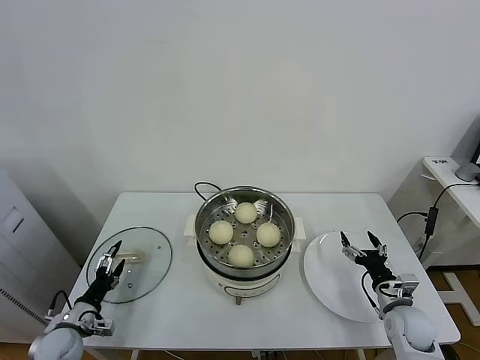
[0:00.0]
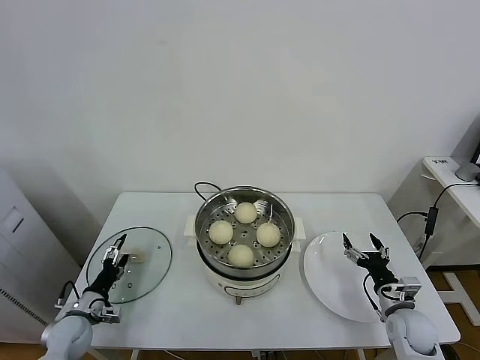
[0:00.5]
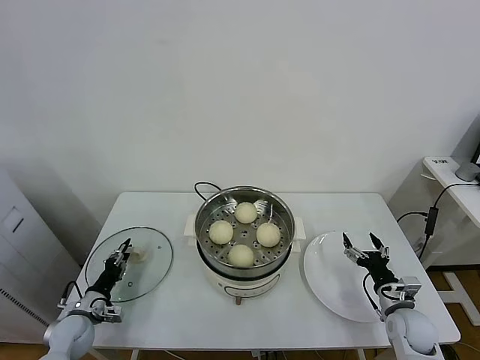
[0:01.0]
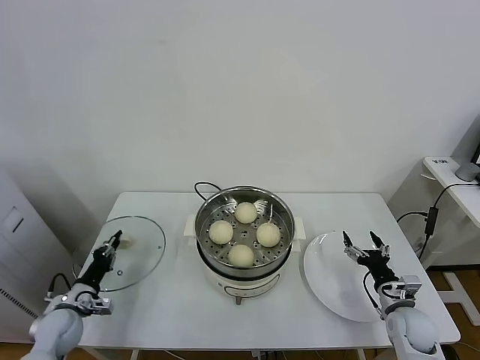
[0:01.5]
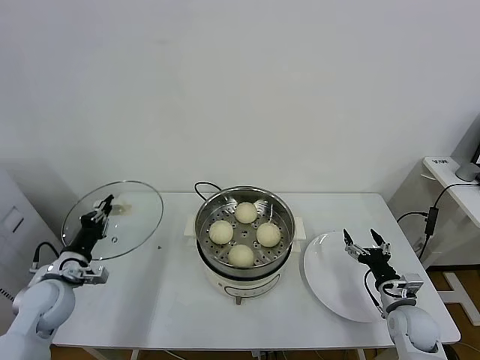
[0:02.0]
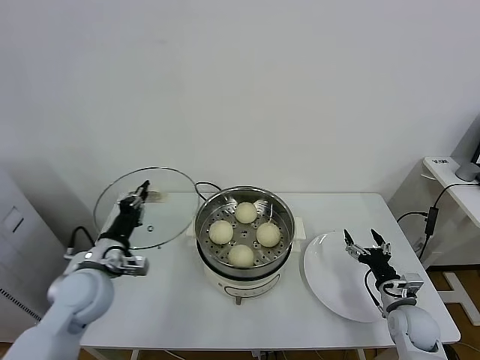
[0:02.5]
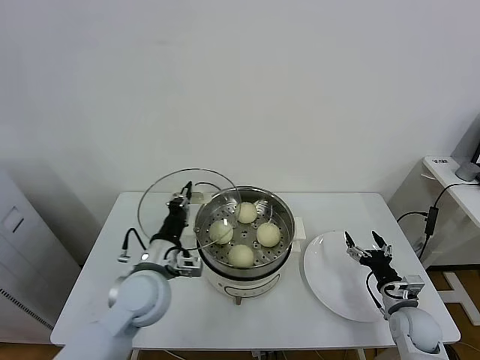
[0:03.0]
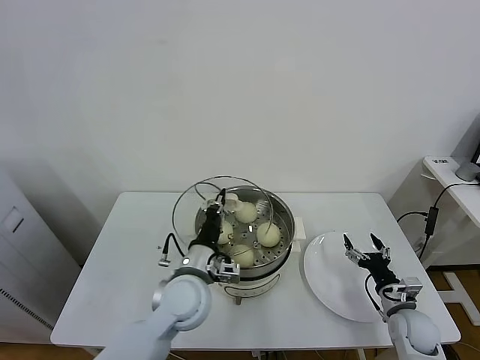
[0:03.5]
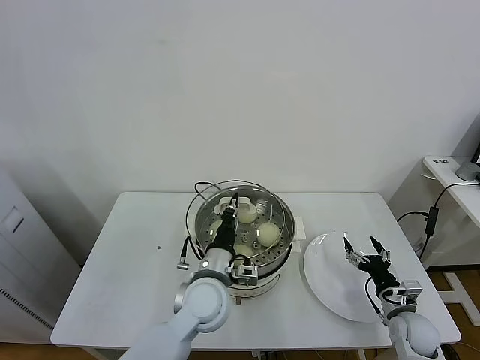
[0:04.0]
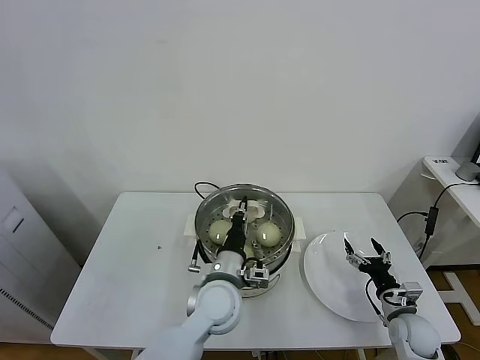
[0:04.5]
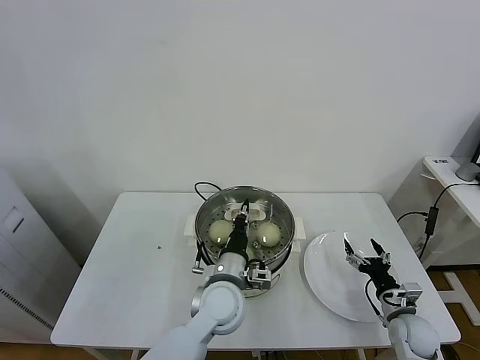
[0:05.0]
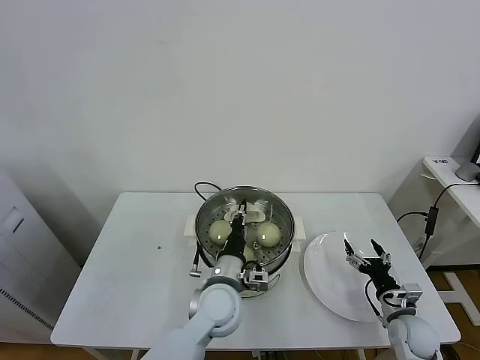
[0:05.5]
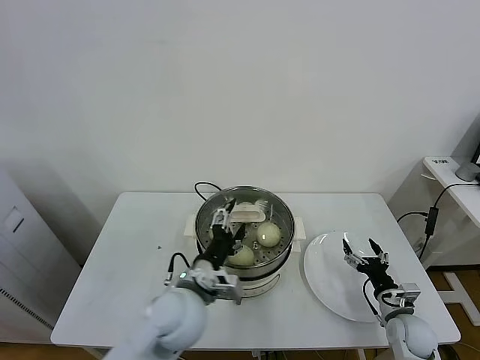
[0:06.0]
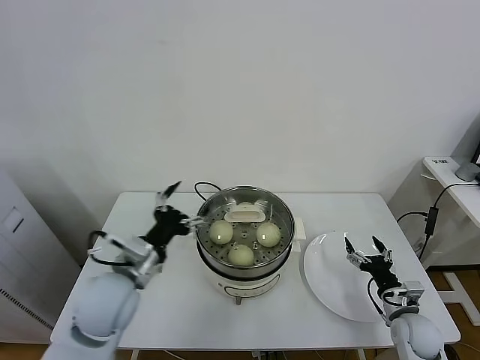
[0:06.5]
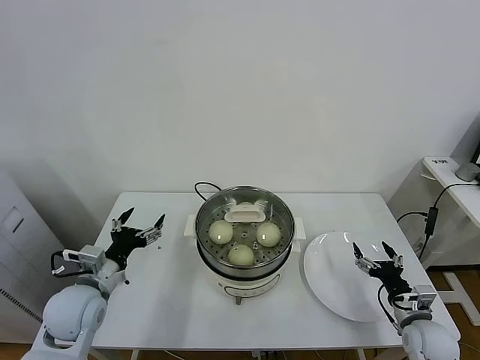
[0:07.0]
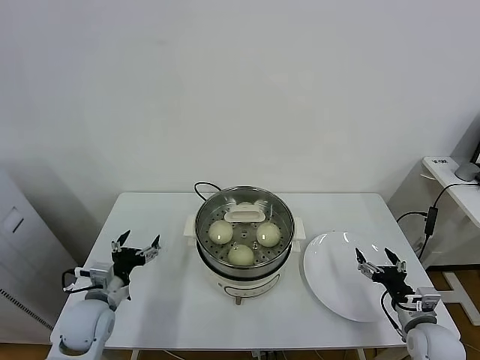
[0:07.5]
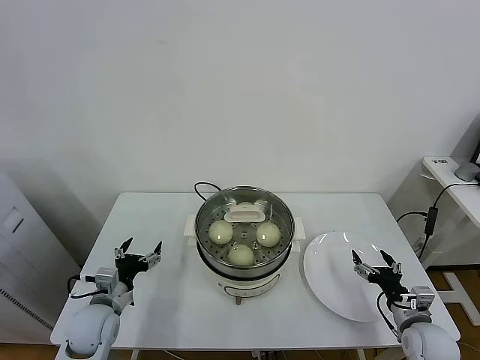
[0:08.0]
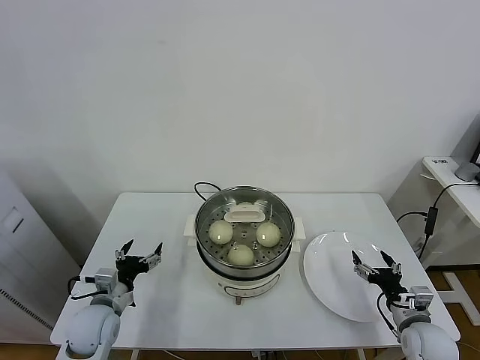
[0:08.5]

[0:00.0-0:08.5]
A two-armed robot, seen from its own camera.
Task of the whole recording: take steamed baozi put them in steamer.
Step, 0:01.5 to 0:06.0: Place the pot lid on the steamer with left gripper.
0:00.0 to 0:02.0: The left gripper heads upward, covering approximately 15 cm, and closes its fingers.
0:02.0 to 0:04.0: The left gripper moves to the right, some 35 cm.
0:04.0 to 0:06.5: The left gripper heads to the left and upward, covering about 15 cm, and opens its fingers.
0:06.5 to 0:08.5: The left gripper shifts some 20 cm downward and to the left.

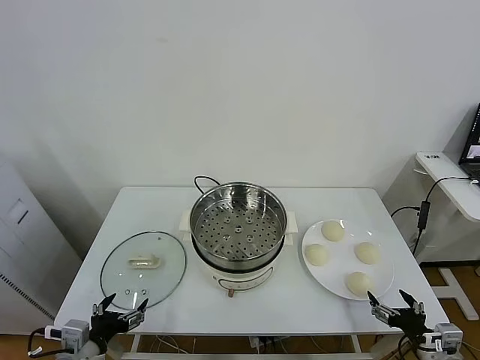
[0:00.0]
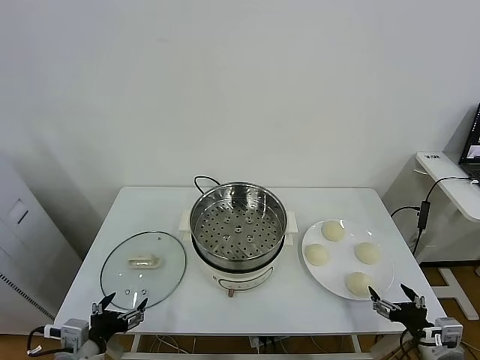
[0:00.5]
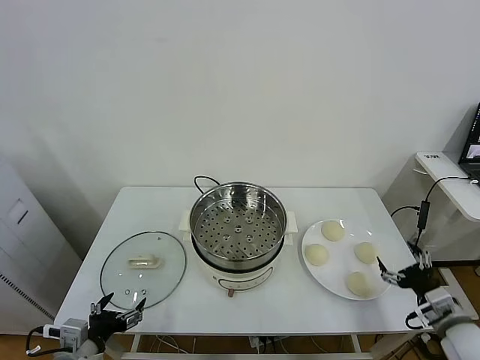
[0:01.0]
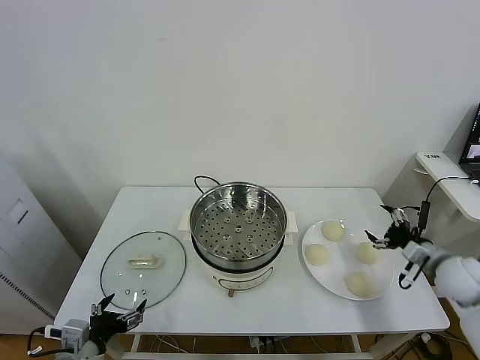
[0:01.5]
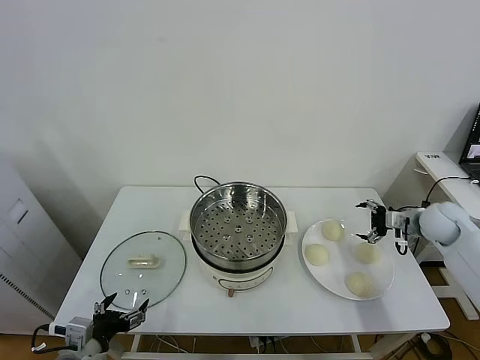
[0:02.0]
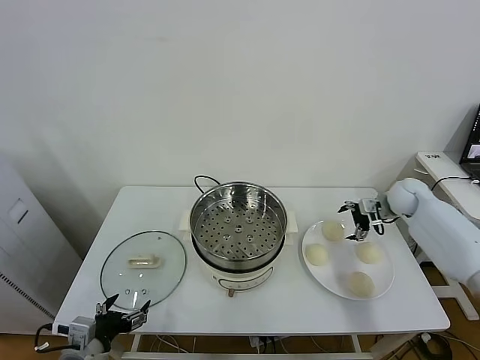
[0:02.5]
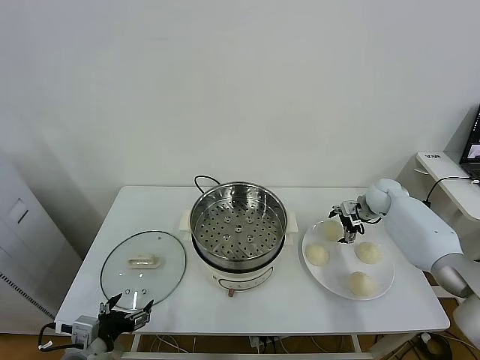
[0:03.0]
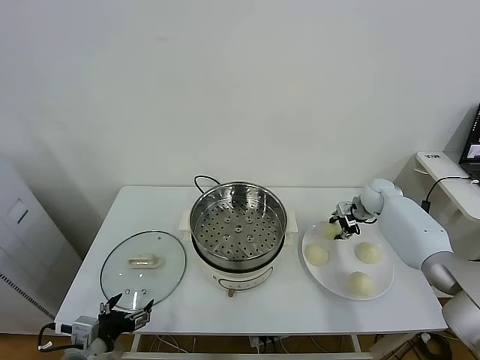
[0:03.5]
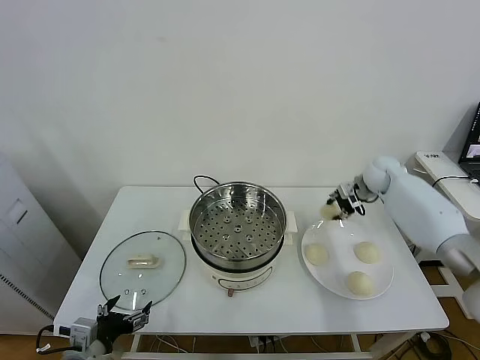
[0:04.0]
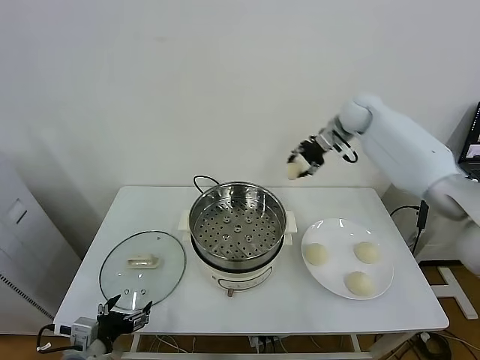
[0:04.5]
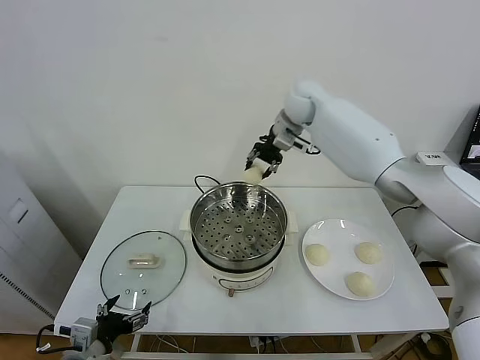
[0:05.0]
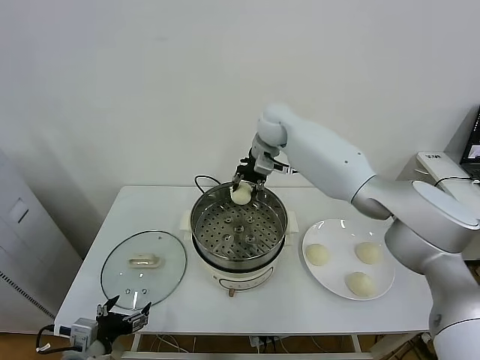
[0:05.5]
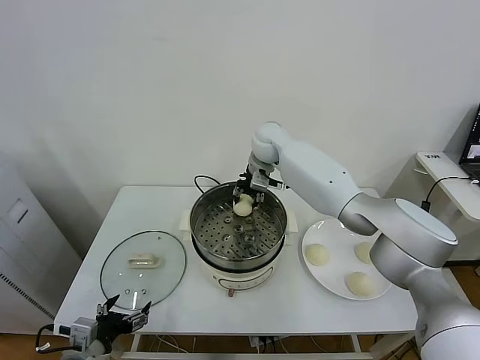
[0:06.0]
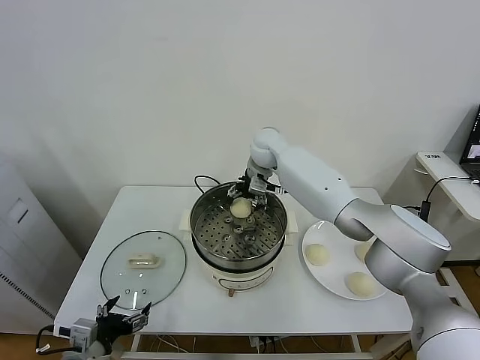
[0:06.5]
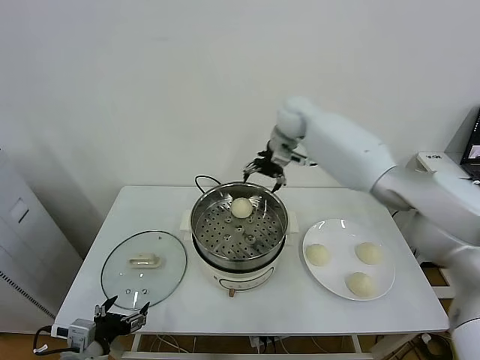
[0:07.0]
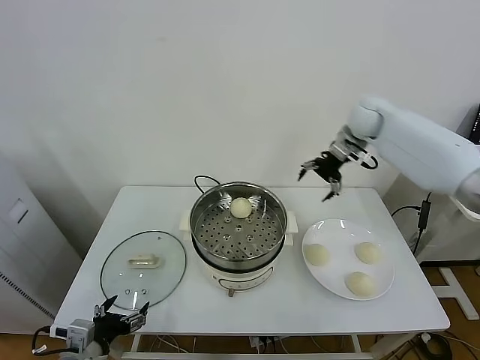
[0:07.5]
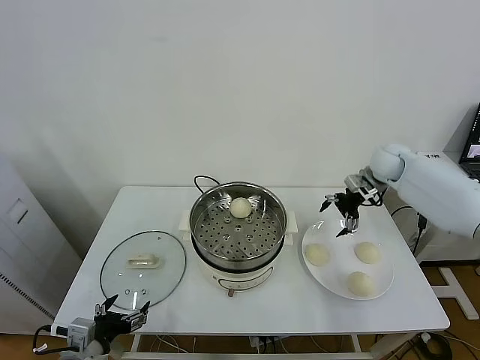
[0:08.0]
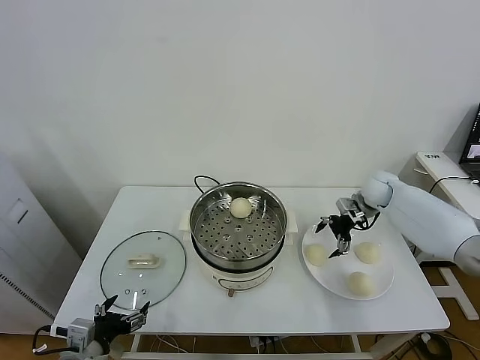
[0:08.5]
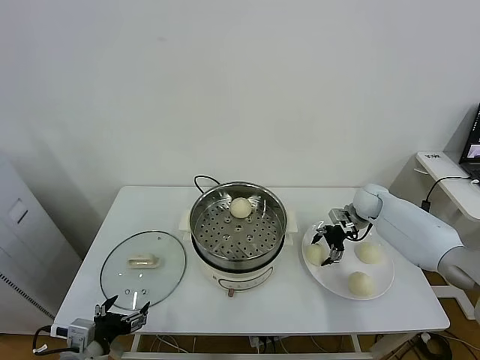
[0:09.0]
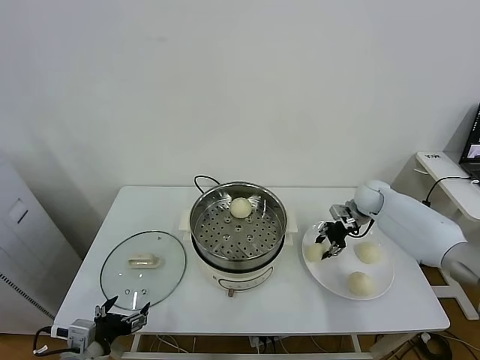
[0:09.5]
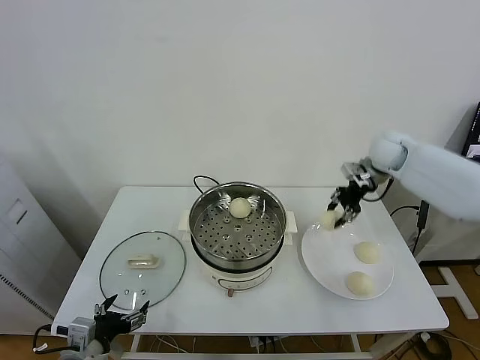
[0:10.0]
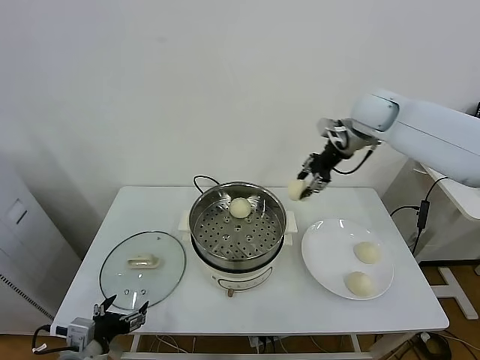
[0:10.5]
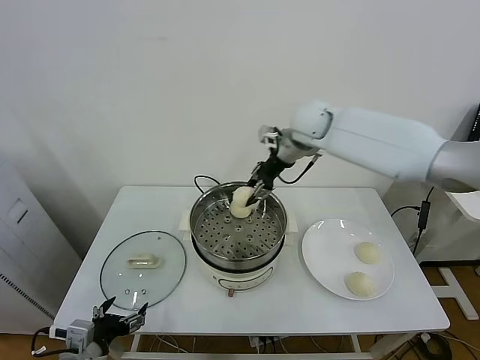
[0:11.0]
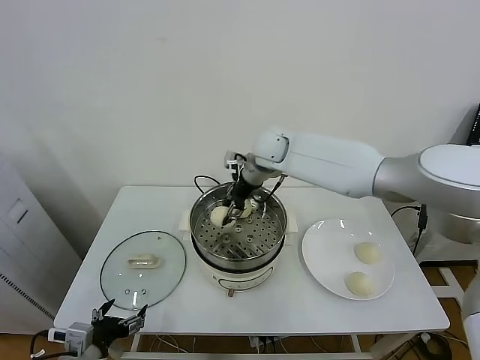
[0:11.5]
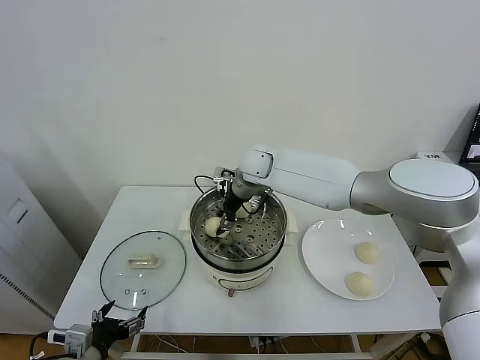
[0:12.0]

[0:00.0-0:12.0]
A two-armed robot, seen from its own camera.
Task of the whole recording: take steamed baozi put them in steamer.
Step, 0:00.0 to 0:03.0: Grasp the baozi in the plate with right gripper.
Step, 0:03.5 to 0:06.5: Place the baozi on the steamer with right gripper.
Step, 0:07.0 to 0:09.0: Grasp the baozi in the plate with right gripper.
0:02.0 to 0:04.0: The right gripper shifts roughly 20 cm forward, to the left and upward, and closes up.
0:04.0 to 0:06.0: The right gripper moves to the left, roughly 30 cm.
0:06.0 to 0:08.0: The right gripper shifts about 30 cm to the right, and opens up.
0:08.0 to 0:10.0: The right gripper shifts approximately 10 cm upward, and closes.
0:10.0 to 0:12.0: The right gripper shifts about 30 cm to the left.

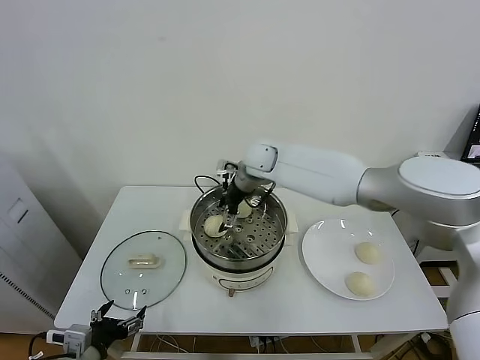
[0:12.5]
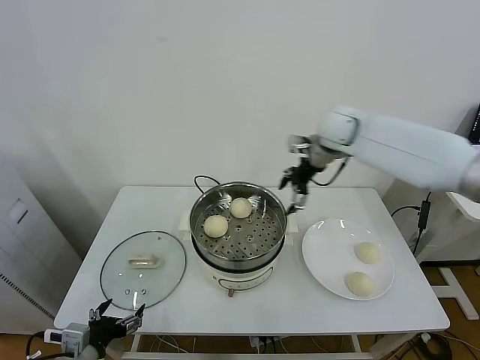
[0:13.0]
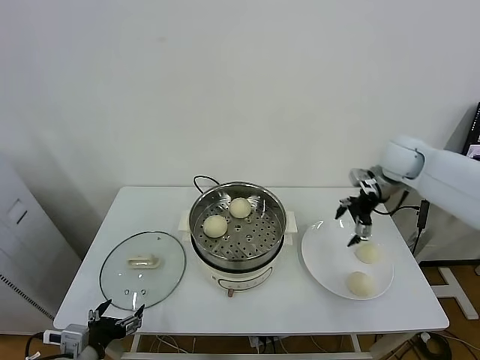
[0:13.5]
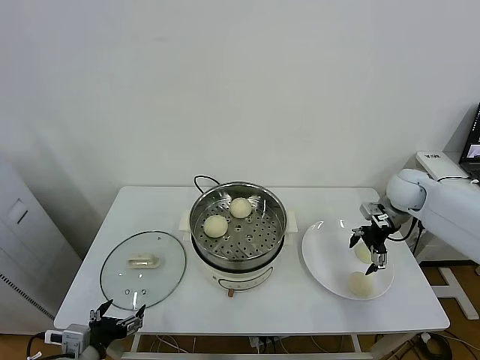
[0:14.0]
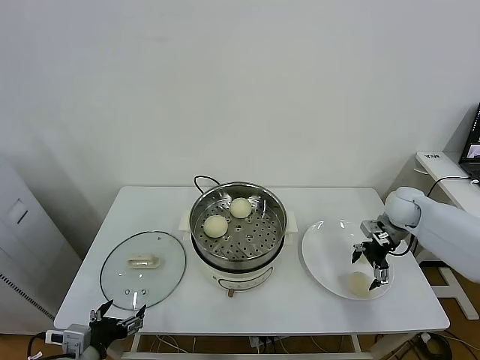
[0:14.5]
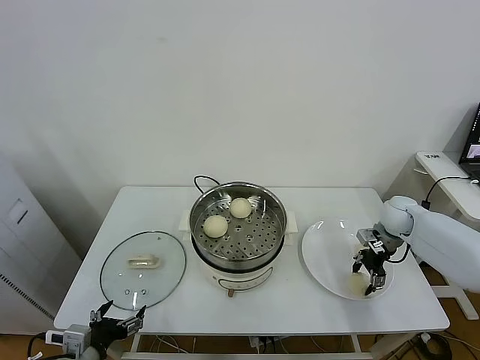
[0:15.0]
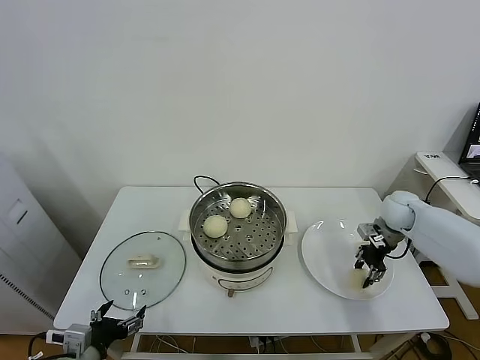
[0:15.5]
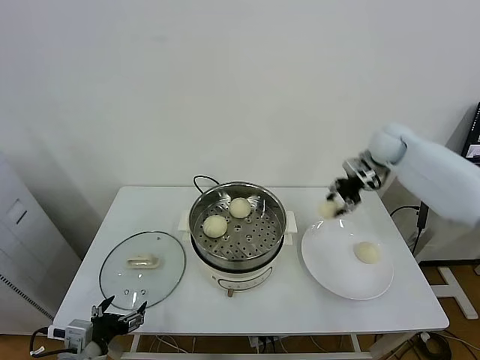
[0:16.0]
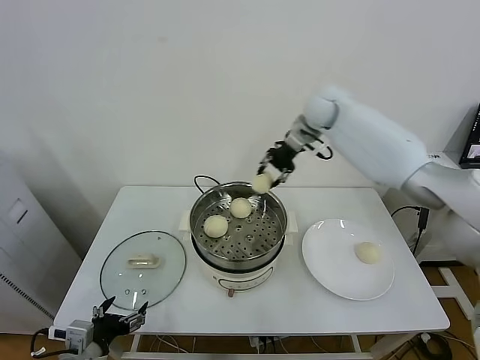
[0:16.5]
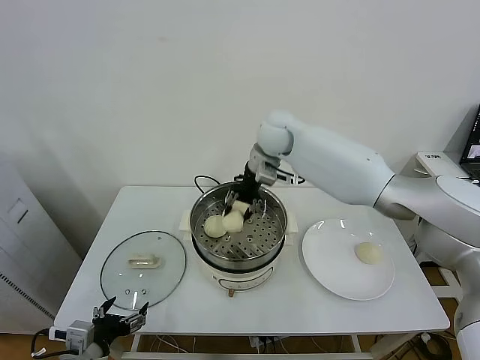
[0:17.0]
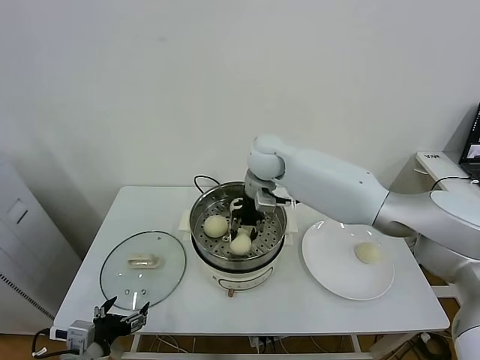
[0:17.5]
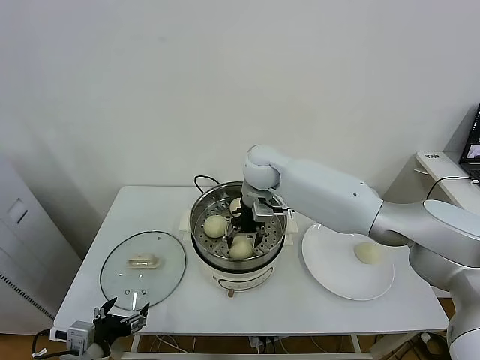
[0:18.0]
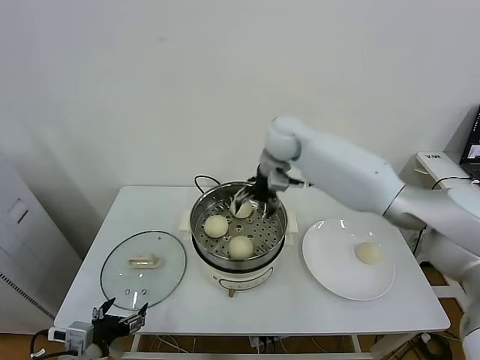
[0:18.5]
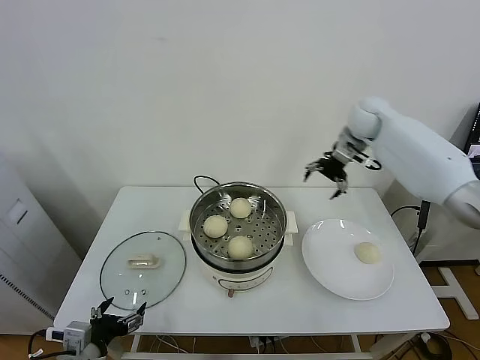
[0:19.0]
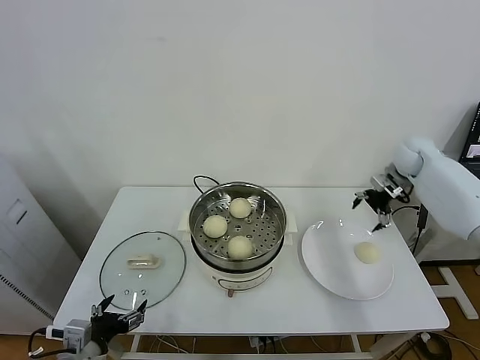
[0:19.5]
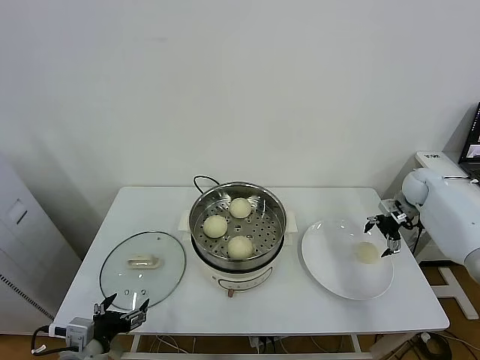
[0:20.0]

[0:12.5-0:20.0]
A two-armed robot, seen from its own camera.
Task of the whole recording: take steamed baozi put them in steamer.
Step, 0:13.0 to 0:15.0: Grasp the baozi in the plate with right gripper.
Step, 0:15.5 to 0:18.0: Place the baozi on the steamer with right gripper.
0:12.5 to 0:14.5: The right gripper is displaced to the right by about 35 cm.
0:14.5 to 0:16.5: The right gripper moves to the left, upward and forward, roughly 35 cm, and closes its fingers.
0:16.5 to 0:18.0: The right gripper moves to the left, downward and backward, some 20 cm, and opens its fingers.
0:18.0 to 0:20.0: The right gripper travels to the right by roughly 40 cm, and opens.